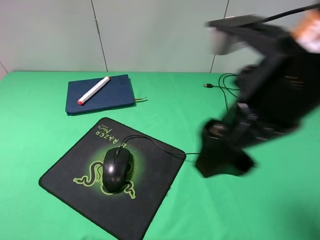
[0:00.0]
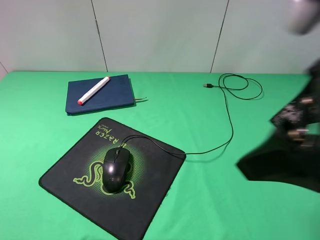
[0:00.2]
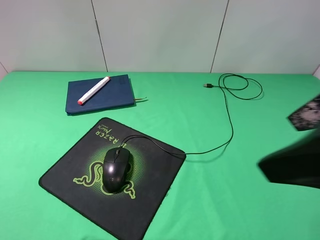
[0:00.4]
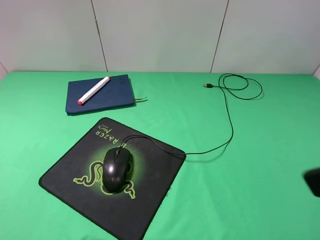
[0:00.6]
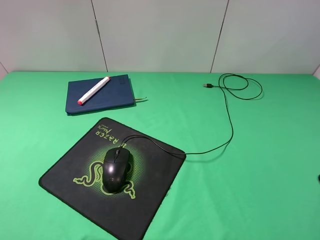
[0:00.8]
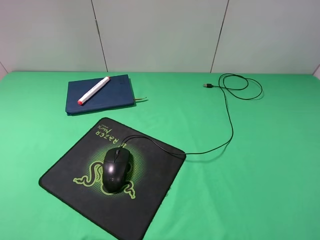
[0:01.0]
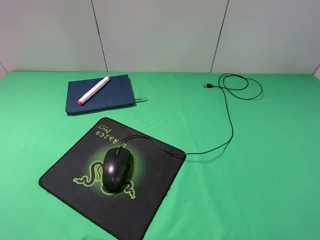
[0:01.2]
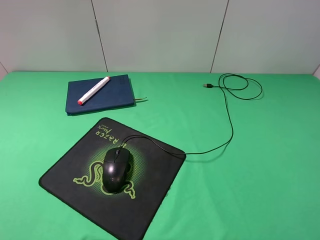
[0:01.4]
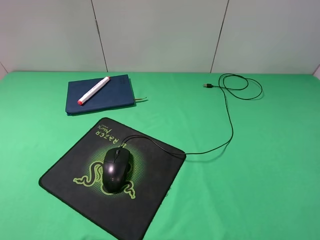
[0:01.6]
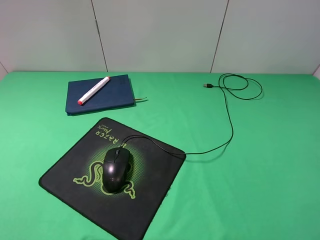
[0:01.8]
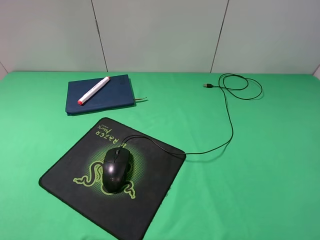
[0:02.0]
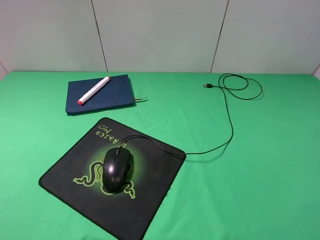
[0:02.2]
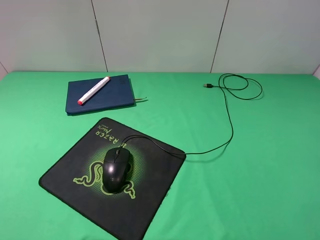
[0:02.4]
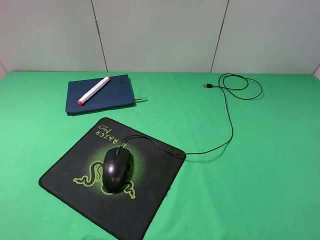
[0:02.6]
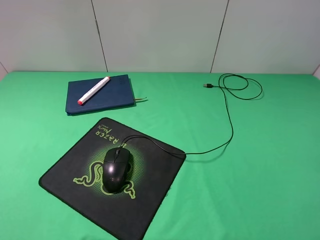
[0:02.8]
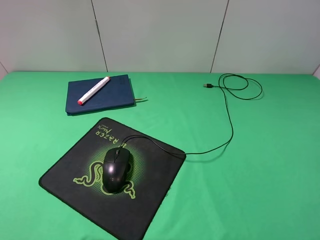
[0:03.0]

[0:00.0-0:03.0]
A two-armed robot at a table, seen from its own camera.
0:00.0 to 0:01.6: The right gripper heads to the right and backward, covering roughly 20 cm.
0:01.6 to 0:03.0: Both grippers stay about where they are.
